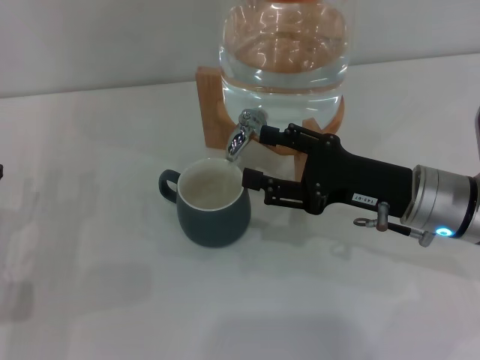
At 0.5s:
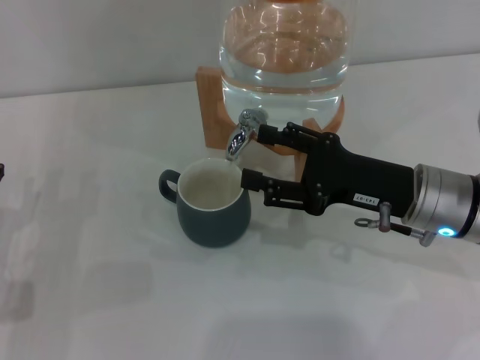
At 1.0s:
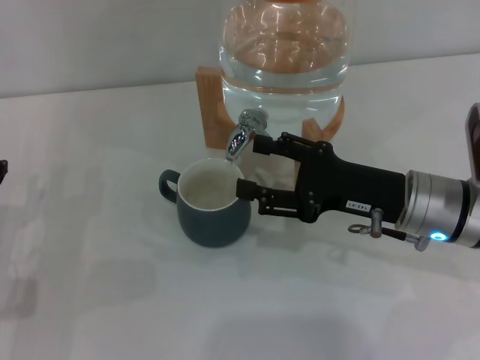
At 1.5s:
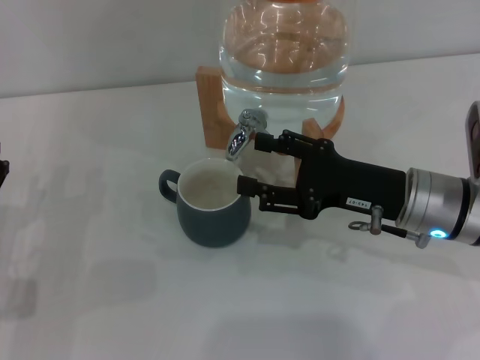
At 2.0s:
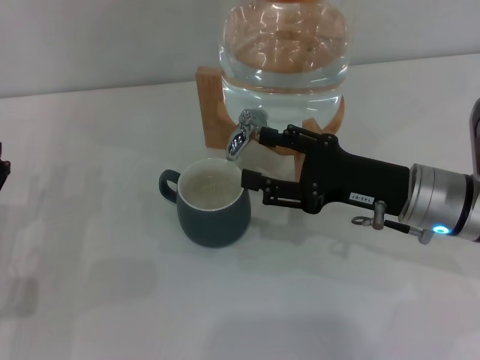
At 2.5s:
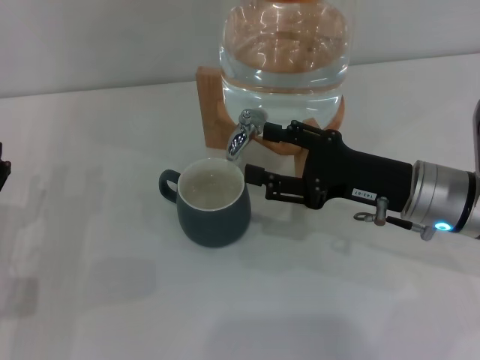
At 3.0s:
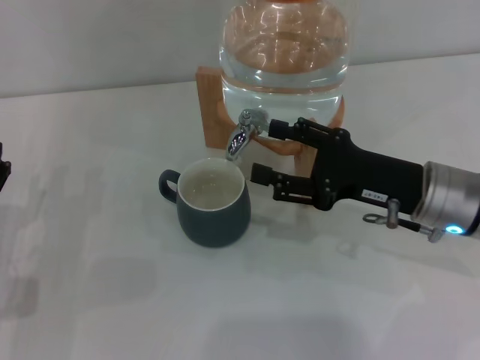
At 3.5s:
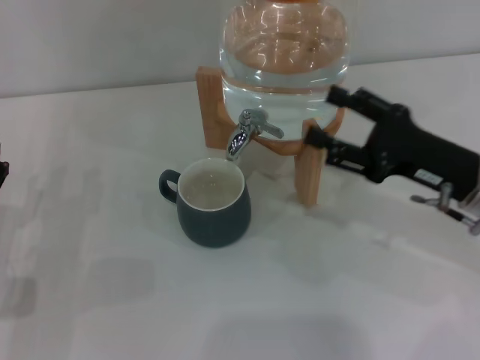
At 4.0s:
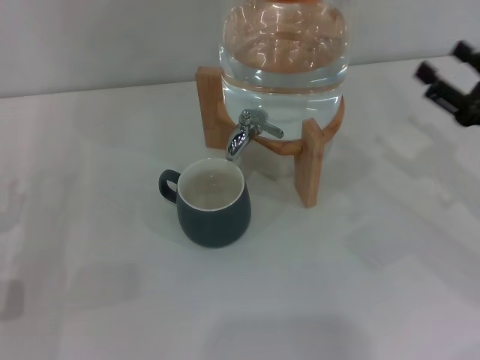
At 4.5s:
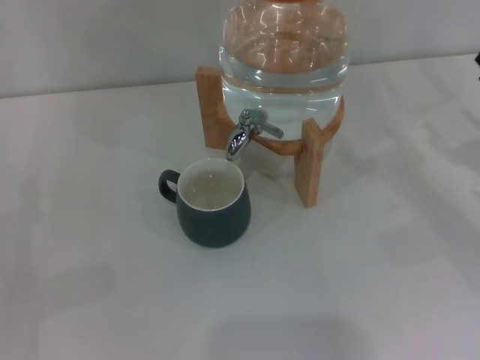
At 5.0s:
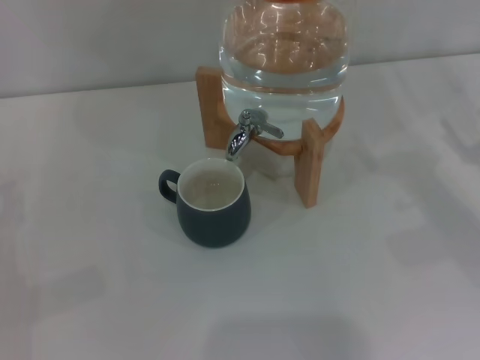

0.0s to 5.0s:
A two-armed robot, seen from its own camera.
Task of the whole recording: the left gripper pick up the black cup and place it horizontally under the faucet, the right gripper turn on the faucet to fill the cup, and then turn off the faucet.
Step, 0.0s to 3.0s: Close the dispenser valve with the right gripper.
0.0s to 2.5s: Both grippers stay about where they are.
2.5s to 5.0s: The right gripper travels to the right by some 15 cm, while the left gripper heads to the left, covering some 5 cm.
